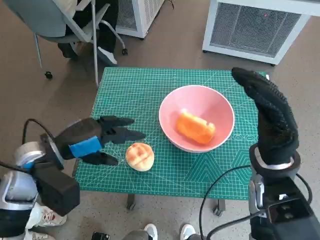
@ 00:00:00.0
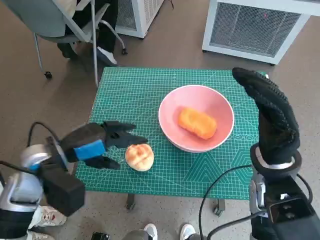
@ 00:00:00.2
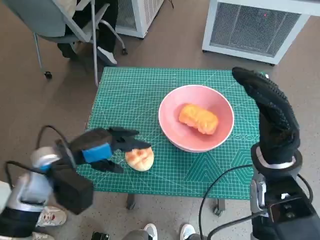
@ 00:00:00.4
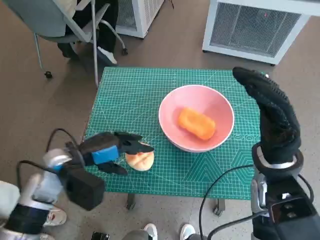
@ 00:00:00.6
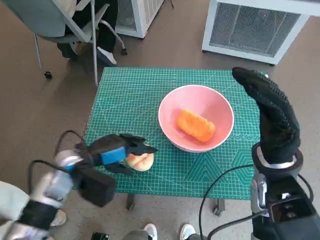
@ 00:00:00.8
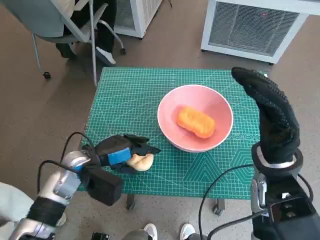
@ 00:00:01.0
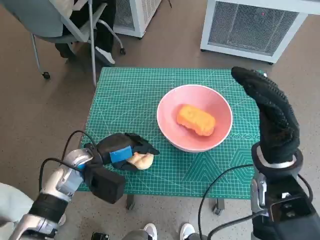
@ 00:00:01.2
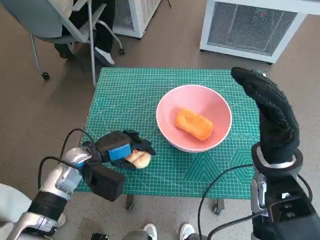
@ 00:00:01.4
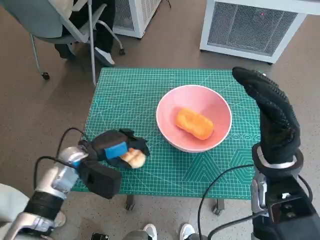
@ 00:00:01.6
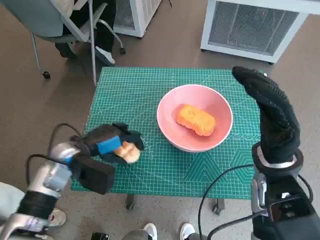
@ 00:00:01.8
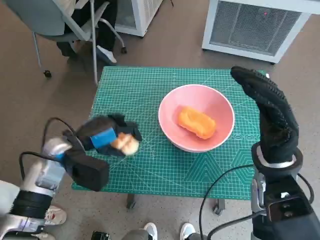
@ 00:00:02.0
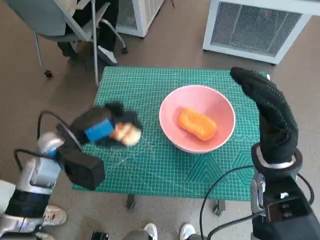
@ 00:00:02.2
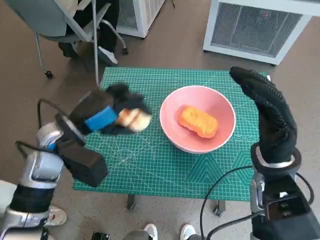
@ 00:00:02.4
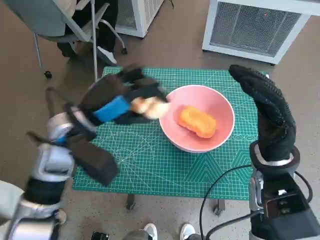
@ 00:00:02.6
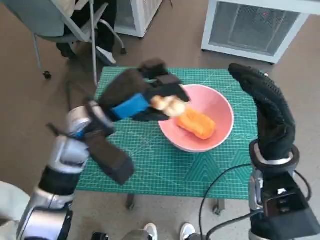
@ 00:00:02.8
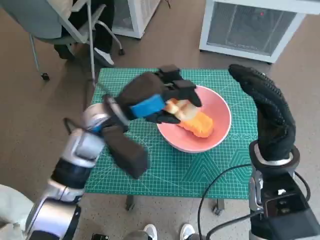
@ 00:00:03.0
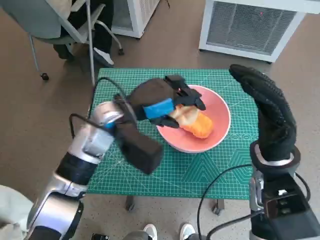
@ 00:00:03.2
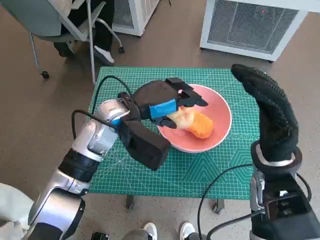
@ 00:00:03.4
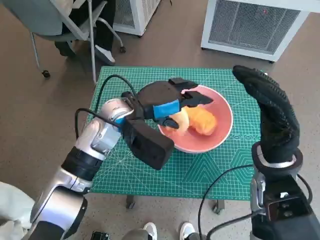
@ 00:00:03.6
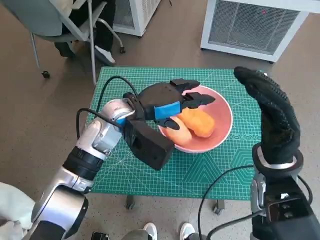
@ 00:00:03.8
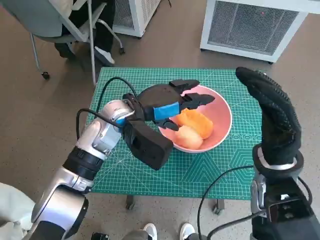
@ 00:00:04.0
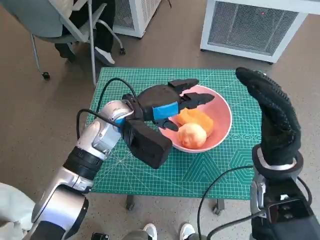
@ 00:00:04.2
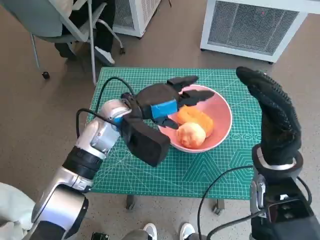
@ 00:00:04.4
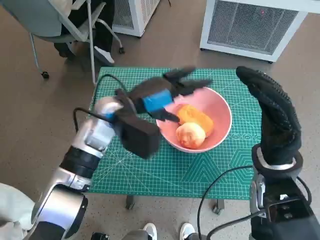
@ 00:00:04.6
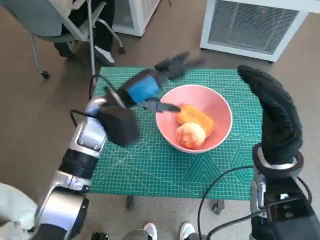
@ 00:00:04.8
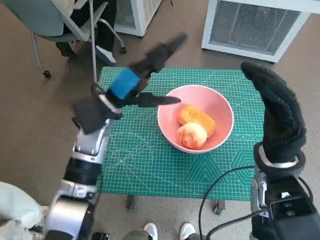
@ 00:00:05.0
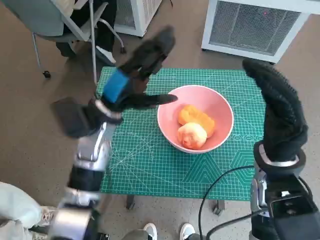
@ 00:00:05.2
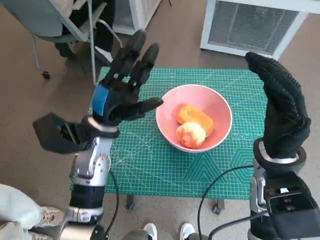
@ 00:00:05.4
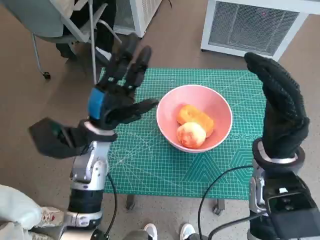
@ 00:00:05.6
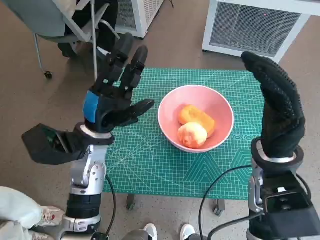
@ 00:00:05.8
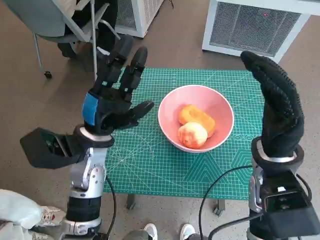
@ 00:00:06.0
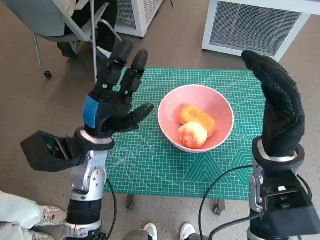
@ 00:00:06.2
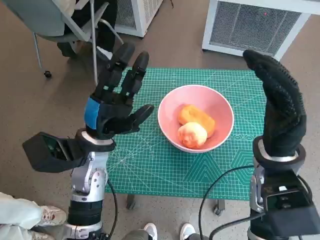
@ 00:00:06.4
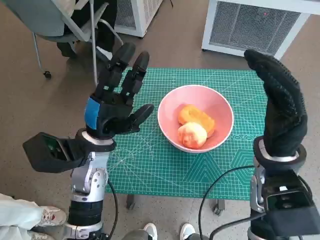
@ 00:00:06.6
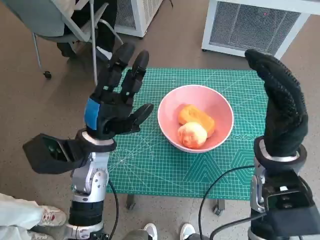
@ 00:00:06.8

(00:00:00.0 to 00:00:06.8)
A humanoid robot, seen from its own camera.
Task of the whole recording: Push the bowl to the center of the table and put the bread into the bowl.
Step, 00:00:01.4 - 00:00:04.6: Place the round bread in pink bowl with left hand.
00:00:00.0 - 00:00:01.4: The left hand is displaced downward by about 10 cm.
00:00:01.4 - 00:00:02.8: The left hand shifts about 15 cm upward.
00:00:02.8 - 00:00:04.0: The left hand moves to the right, about 5 cm.
00:00:04.0 - 00:00:05.4: The left hand goes some 5 cm to the left.
00:00:05.4 - 00:00:06.8: The hands move only a little.
